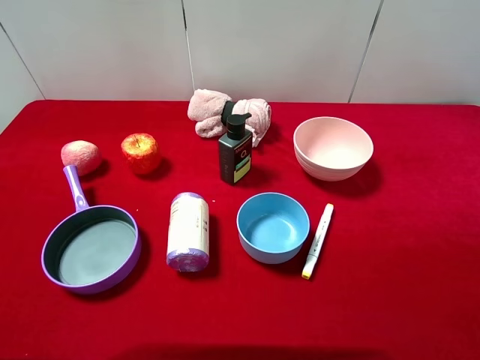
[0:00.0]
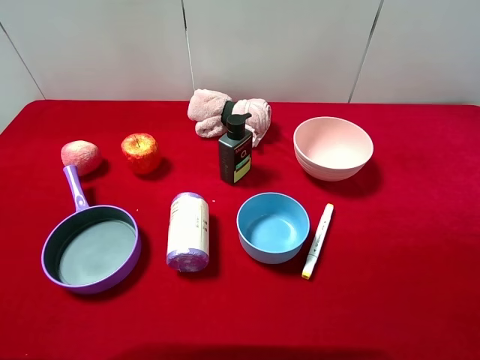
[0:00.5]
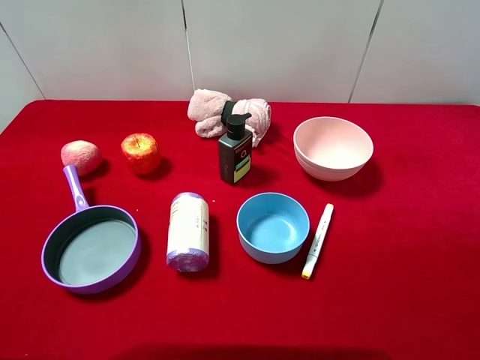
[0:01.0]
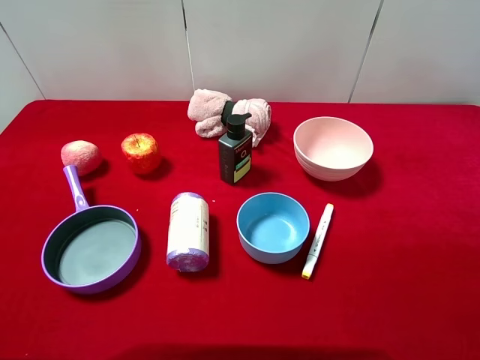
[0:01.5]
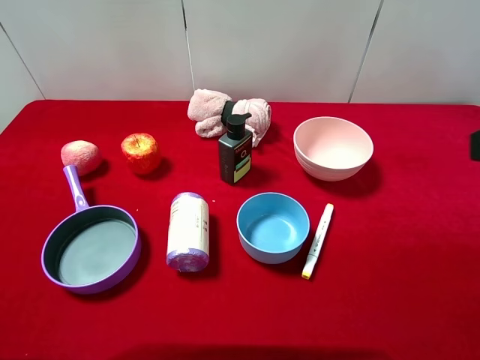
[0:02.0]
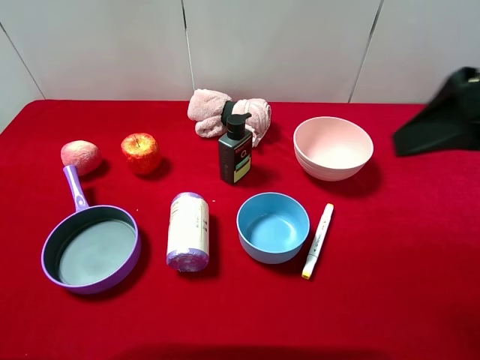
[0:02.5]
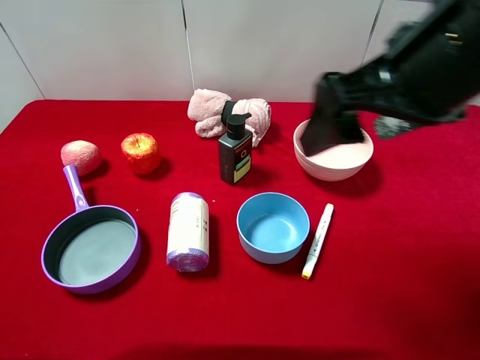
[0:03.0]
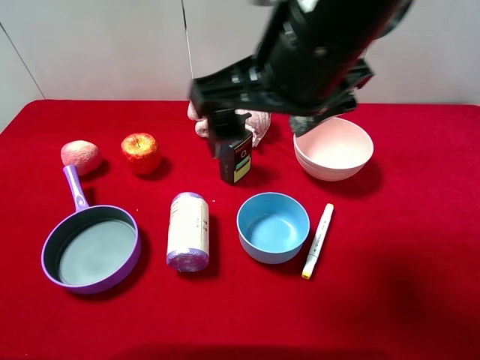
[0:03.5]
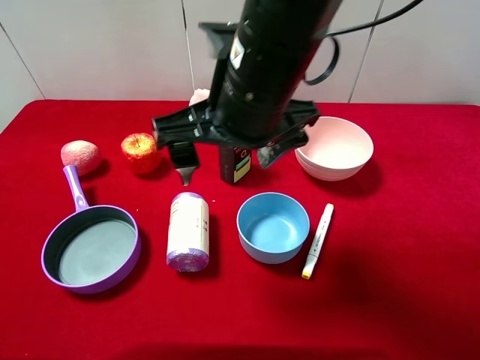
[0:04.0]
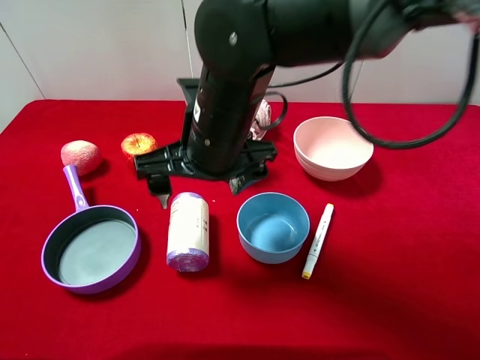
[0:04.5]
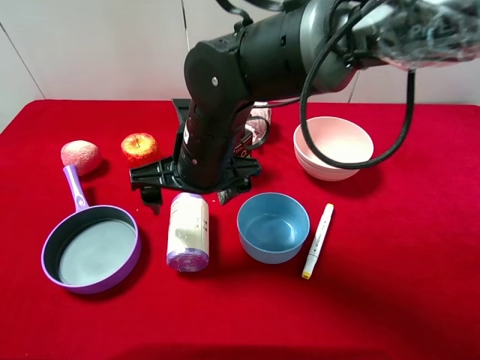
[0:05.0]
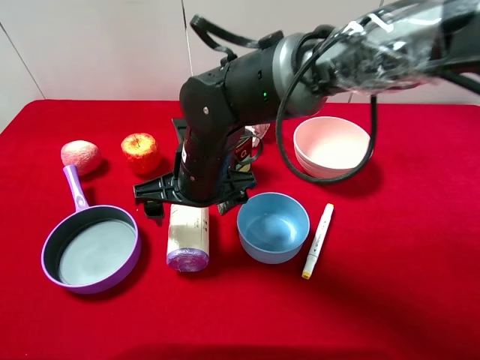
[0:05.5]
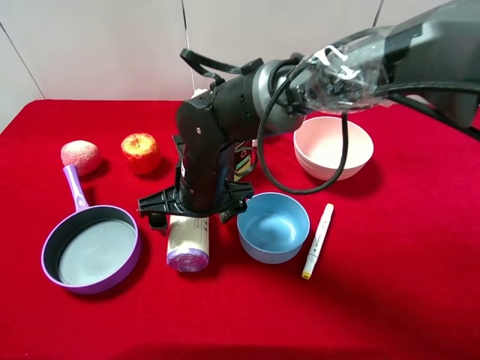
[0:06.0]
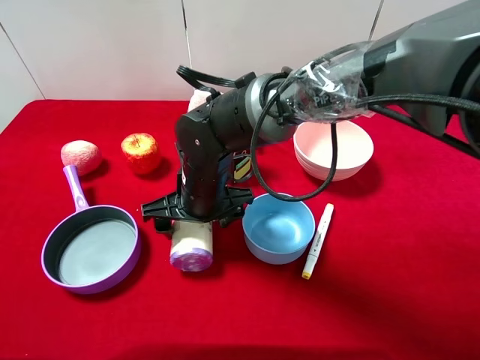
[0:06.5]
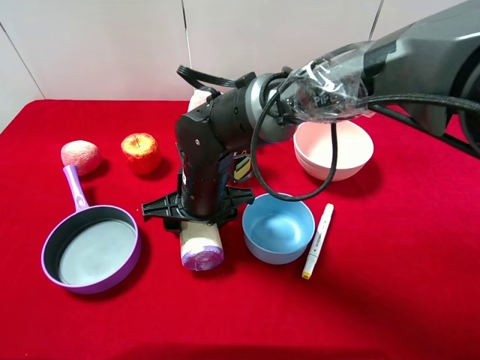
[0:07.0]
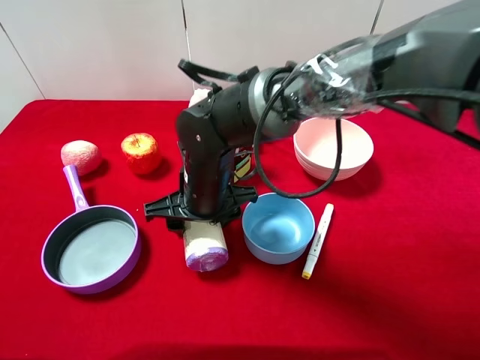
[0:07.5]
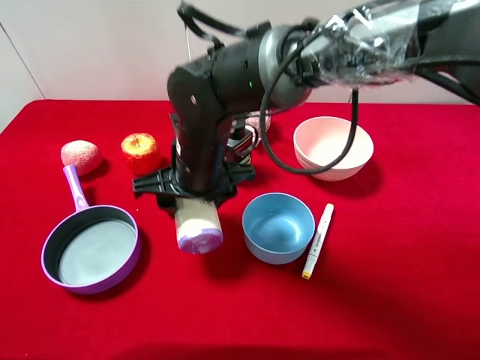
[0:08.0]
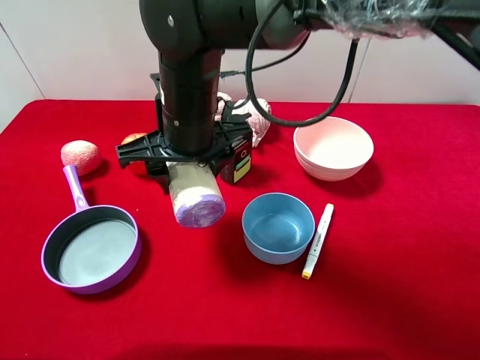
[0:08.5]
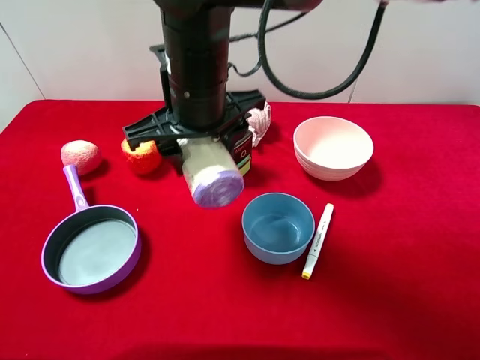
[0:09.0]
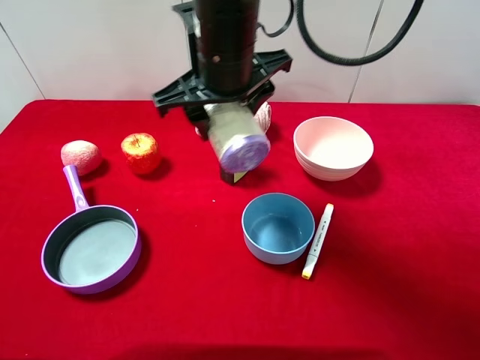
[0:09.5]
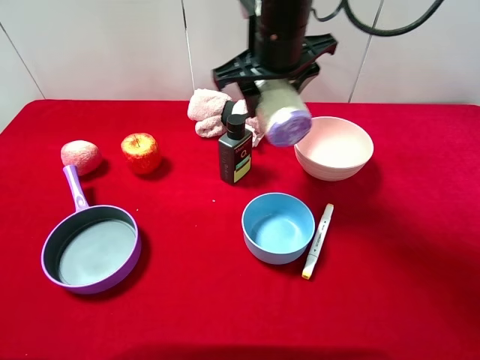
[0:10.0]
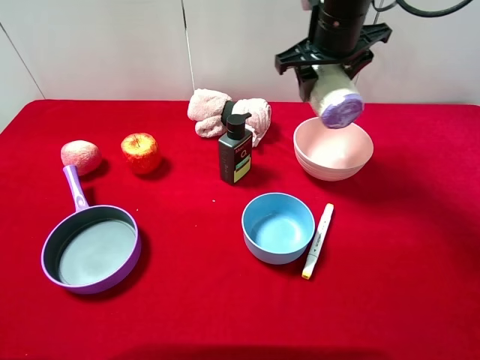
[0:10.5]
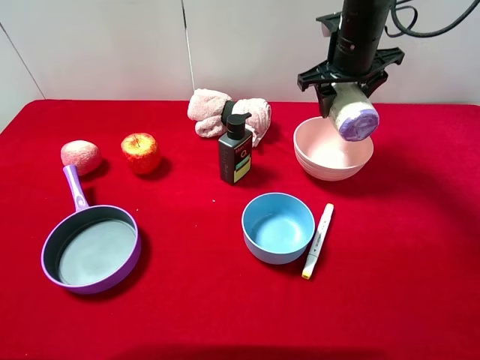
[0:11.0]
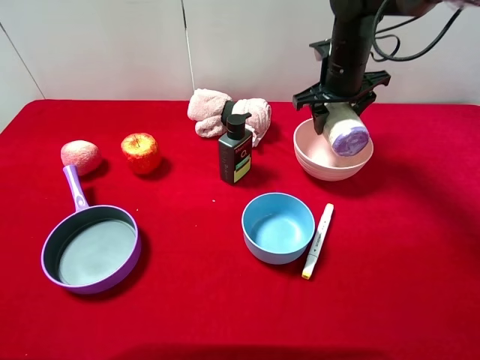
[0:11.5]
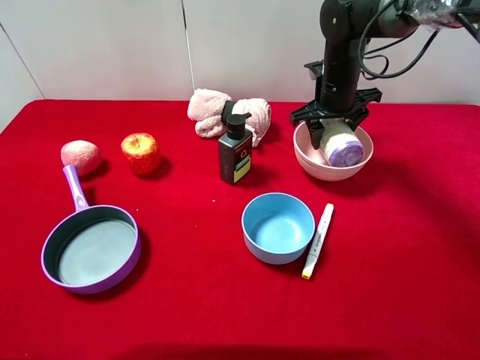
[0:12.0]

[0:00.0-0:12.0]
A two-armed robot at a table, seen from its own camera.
Task of the whole recording: pick up an item with a gripper and place it in a random container on the desktop.
0:02.0 to 0:04.0: The right gripper shifts roughly 30 cm to the left and forward.
0:04.0 to 0:06.0: The right gripper travels downward by roughly 15 cm.
0:06.0 to 0:08.0: The right gripper closes up.
0:08.0 to 0:10.0: The right gripper is displaced upward, to the right and forward by approximately 20 cm.
0:10.0 to 0:12.0: The right gripper goes some 20 cm downward, to the right and forward.

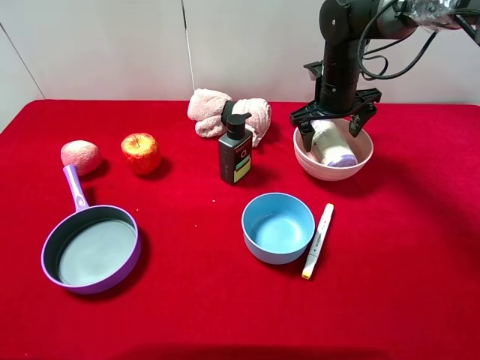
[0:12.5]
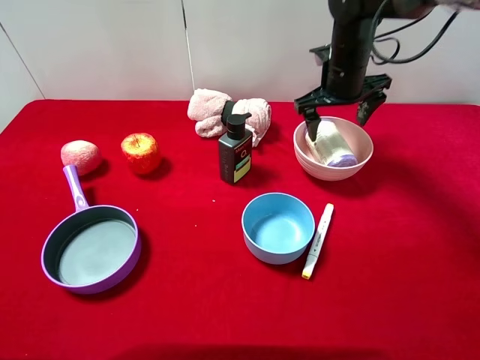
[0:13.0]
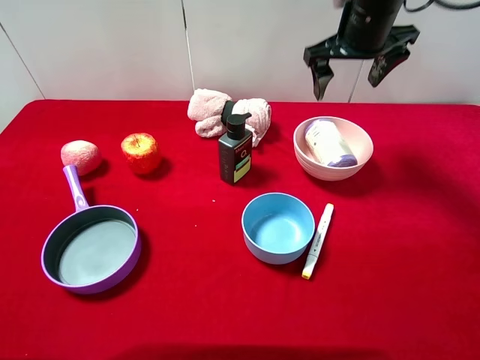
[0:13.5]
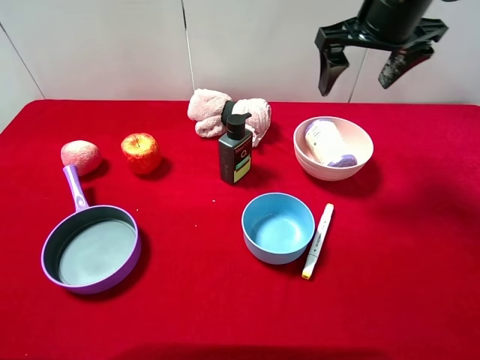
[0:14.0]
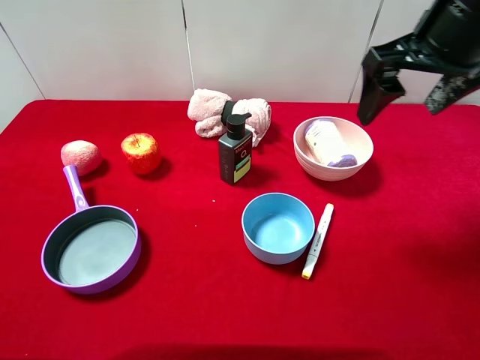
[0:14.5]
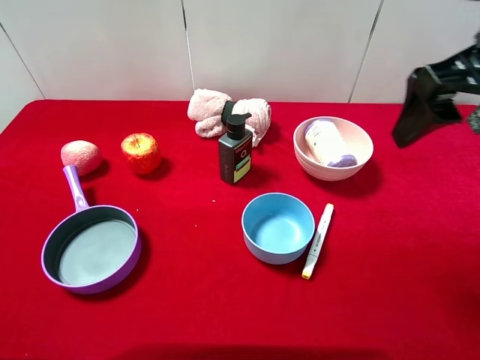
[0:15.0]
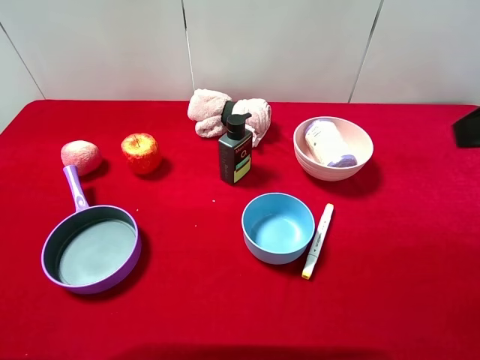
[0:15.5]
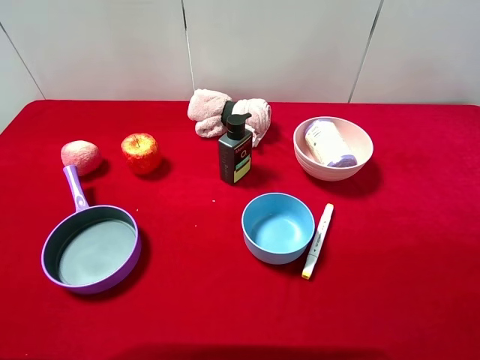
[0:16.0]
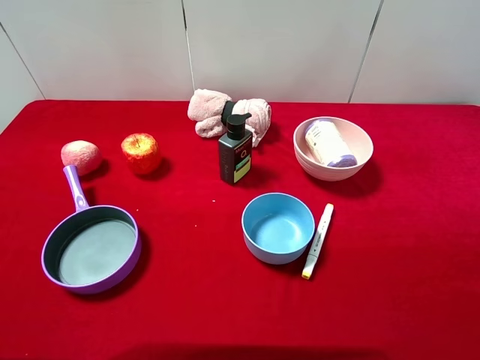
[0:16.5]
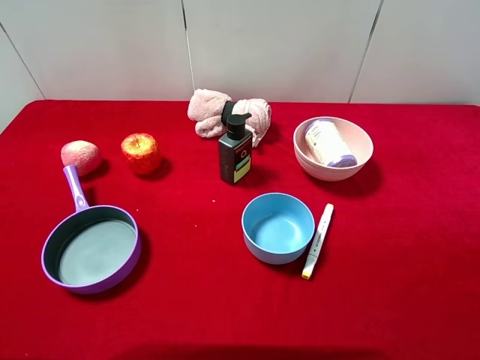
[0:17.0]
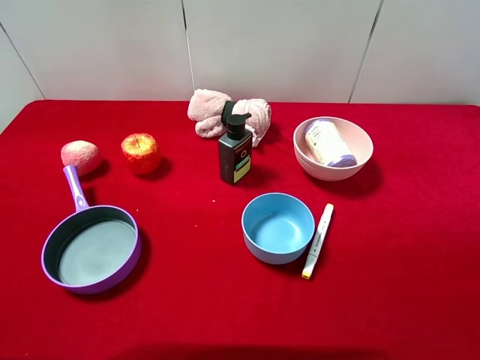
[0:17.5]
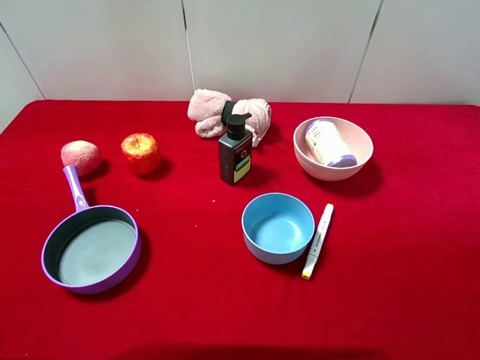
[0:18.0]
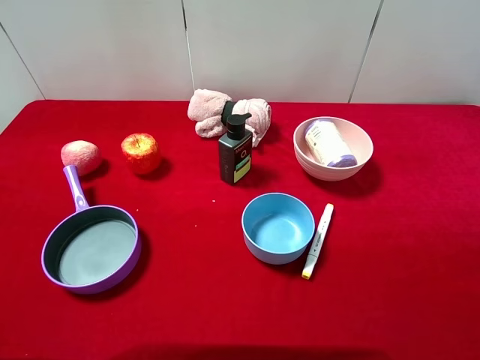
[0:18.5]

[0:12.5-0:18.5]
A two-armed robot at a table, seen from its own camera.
Task of the whole recording: pick up an item with a gripper and place it in a random container on the desktop.
0:12.5 to 0:14.5: The right gripper shifts approximately 25 cm backward and upward.
0:14.5 to 0:16.5: The right gripper goes some 25 cm backward.

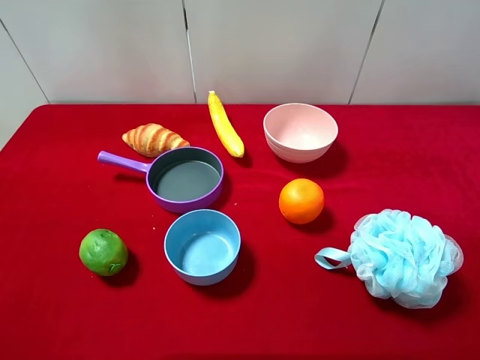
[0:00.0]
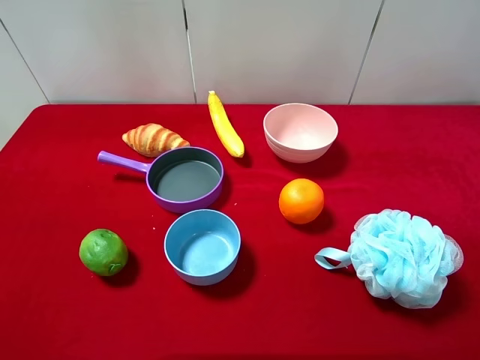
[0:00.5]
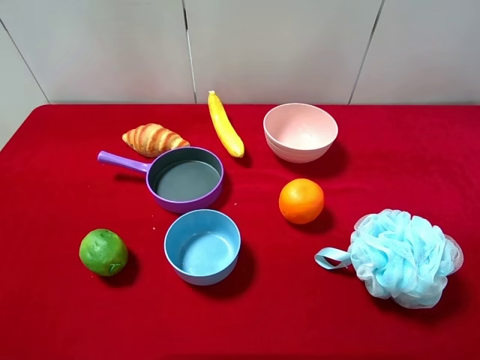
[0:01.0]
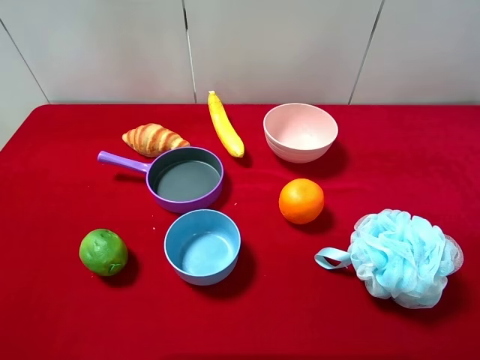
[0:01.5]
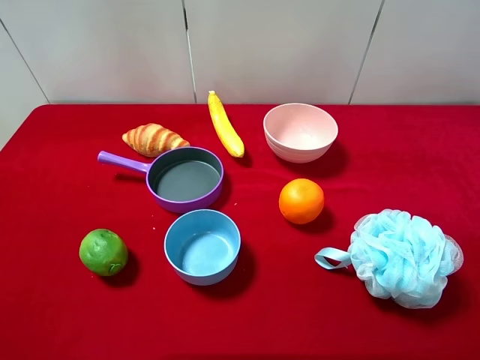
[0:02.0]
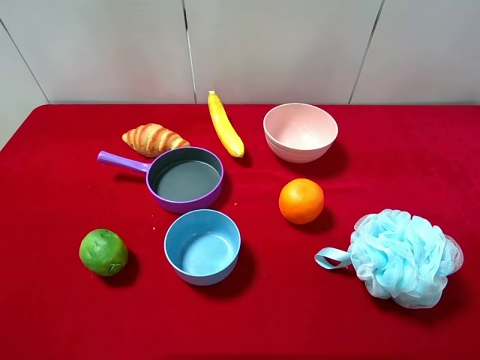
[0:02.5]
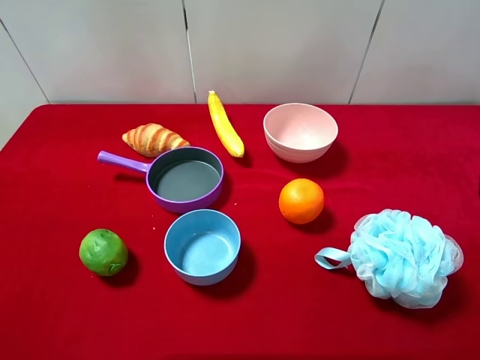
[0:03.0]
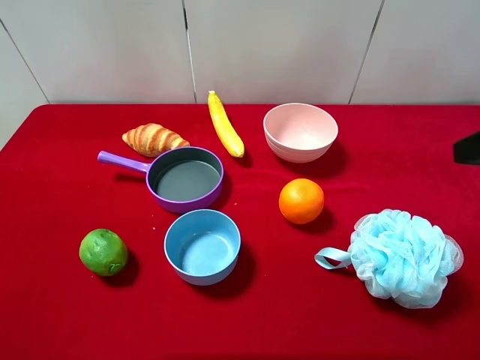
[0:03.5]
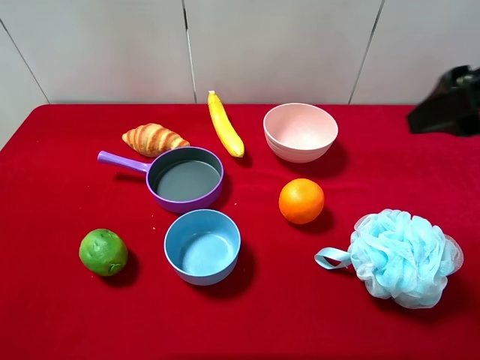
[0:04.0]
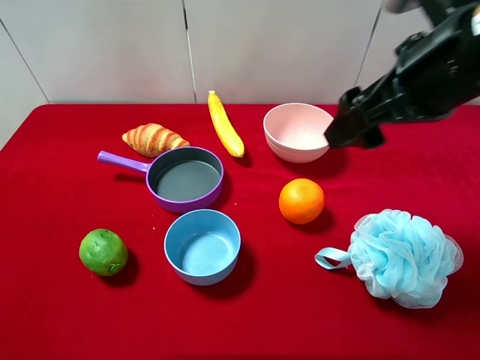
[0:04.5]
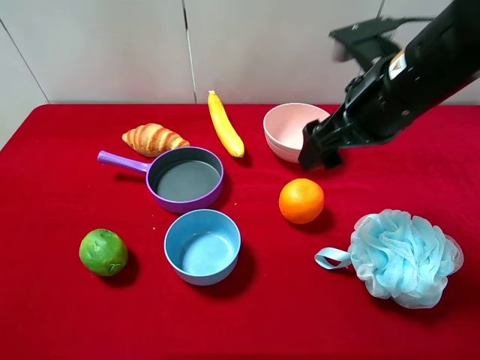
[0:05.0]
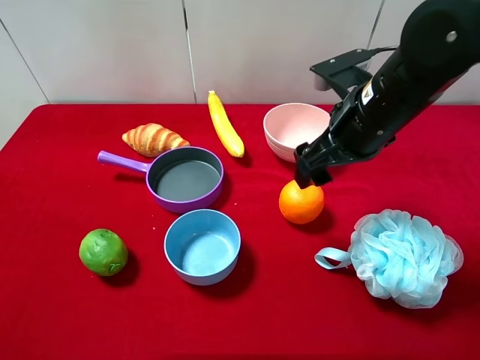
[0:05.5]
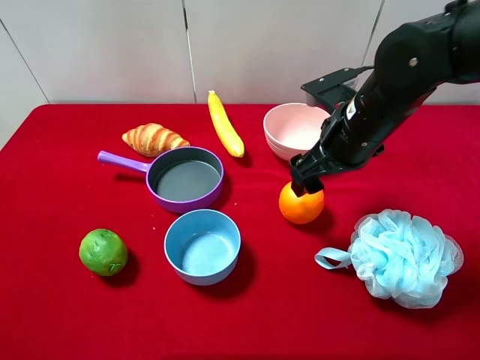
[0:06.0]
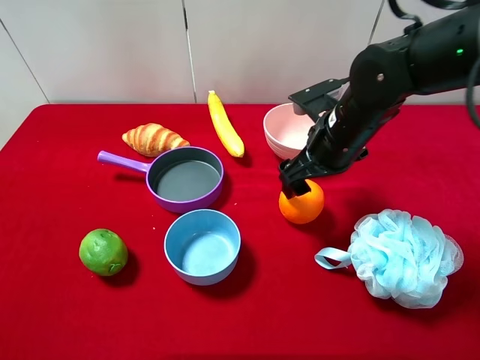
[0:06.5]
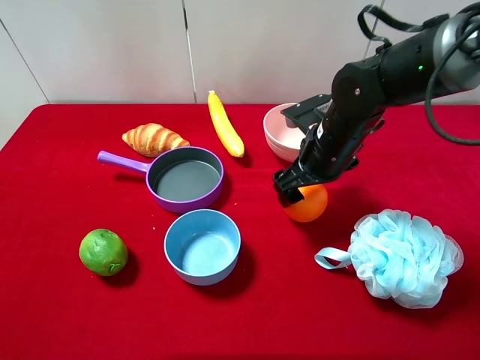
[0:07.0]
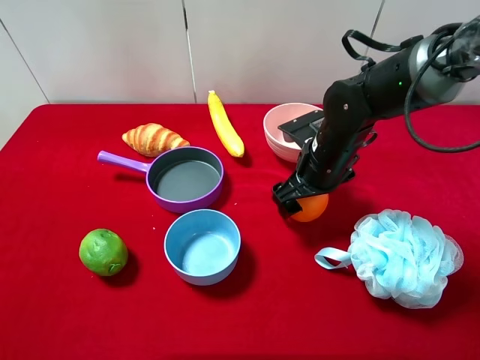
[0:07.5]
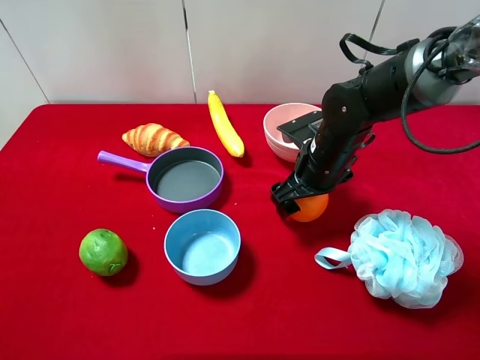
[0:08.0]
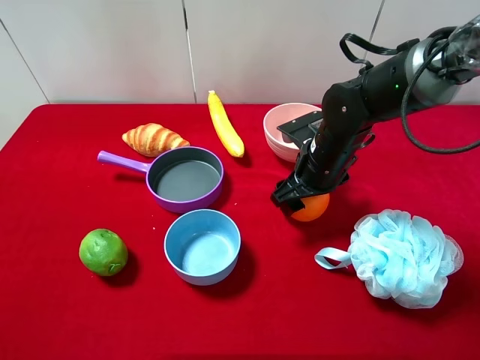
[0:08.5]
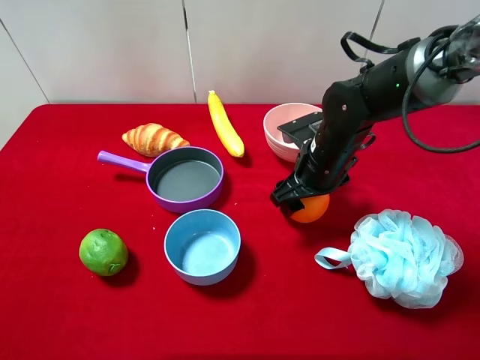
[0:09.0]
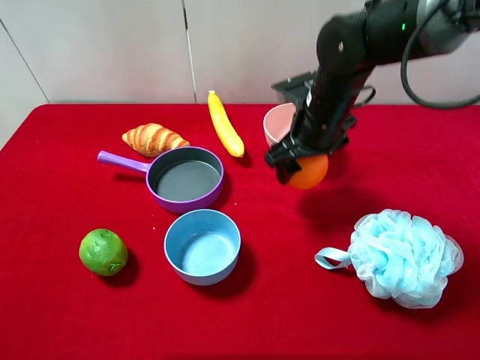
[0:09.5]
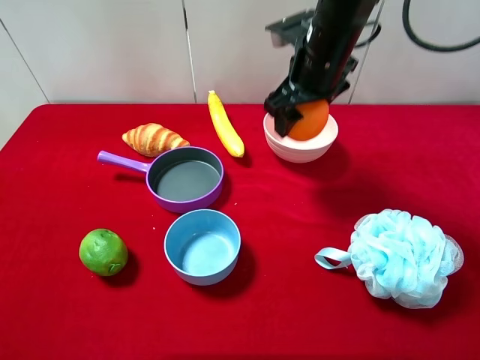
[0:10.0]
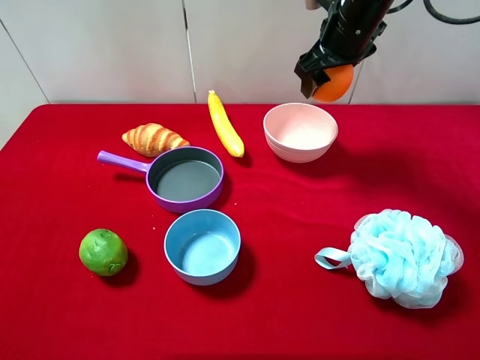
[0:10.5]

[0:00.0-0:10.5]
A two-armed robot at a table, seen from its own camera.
Task of the whole recording: pick up an item with a gripper and place it in a random container on the desktop.
0:00.0 to 0:02.0: Both grippers stay put.
0:02.0 to 0:04.0: The right gripper goes approximately 20 cm forward.
0:04.0 to 0:06.5: The right gripper heads downward, forward and to the left, covering some 20 cm.
0:06.5 to 0:08.5: The right gripper moves downward, approximately 5 cm, and closes its fingers.
0:08.5 to 0:10.5: The right gripper goes some 20 cm upward and forward.
